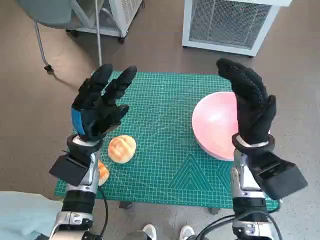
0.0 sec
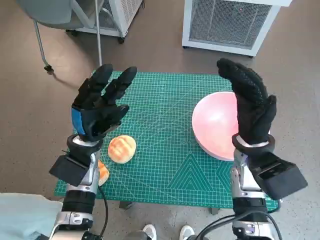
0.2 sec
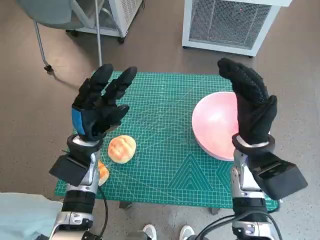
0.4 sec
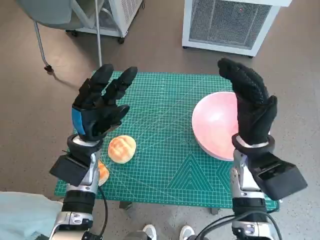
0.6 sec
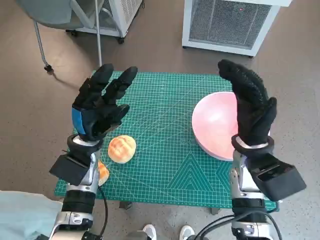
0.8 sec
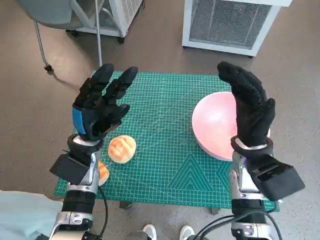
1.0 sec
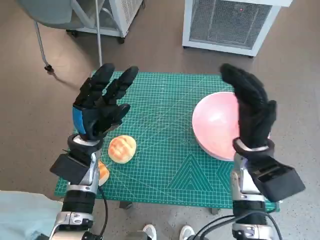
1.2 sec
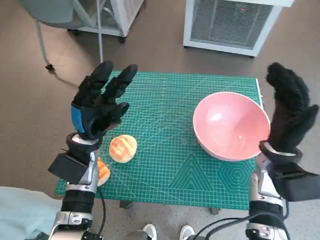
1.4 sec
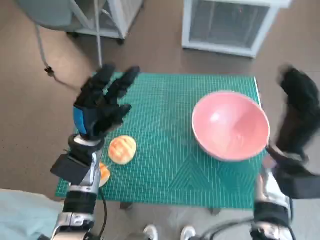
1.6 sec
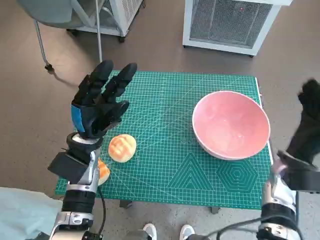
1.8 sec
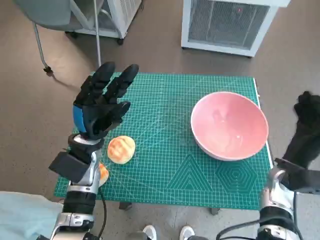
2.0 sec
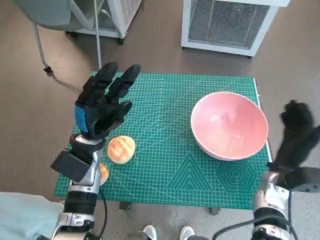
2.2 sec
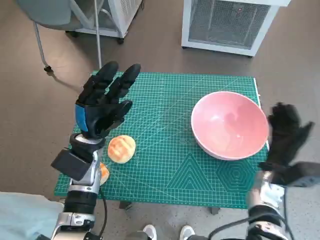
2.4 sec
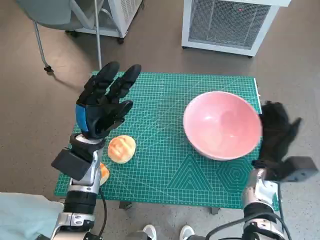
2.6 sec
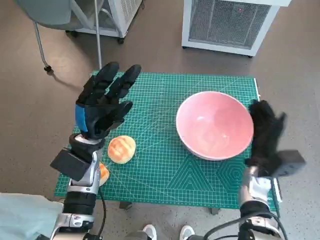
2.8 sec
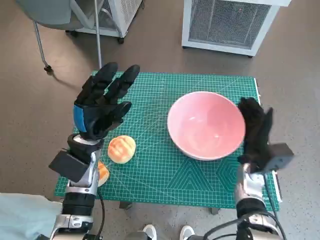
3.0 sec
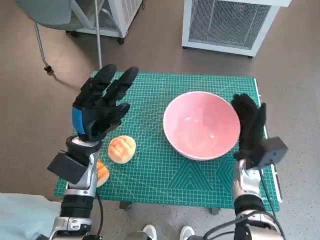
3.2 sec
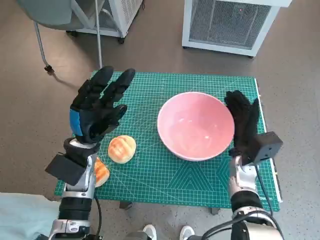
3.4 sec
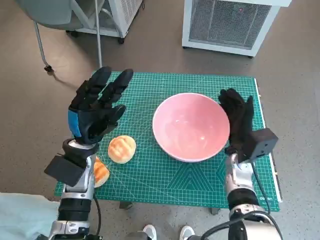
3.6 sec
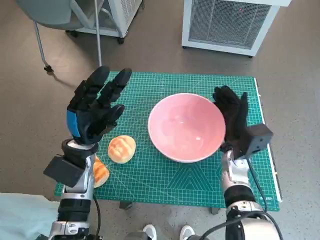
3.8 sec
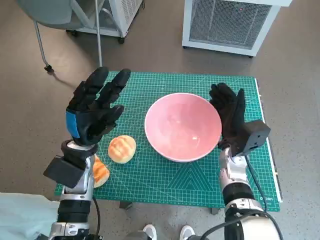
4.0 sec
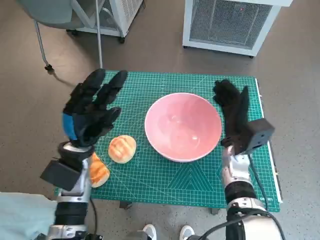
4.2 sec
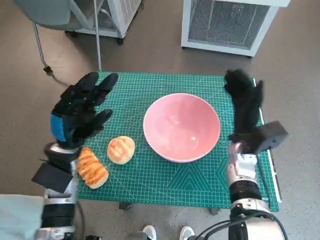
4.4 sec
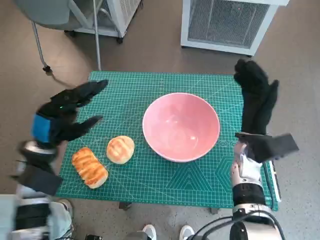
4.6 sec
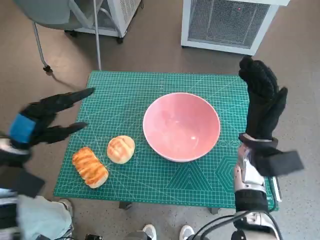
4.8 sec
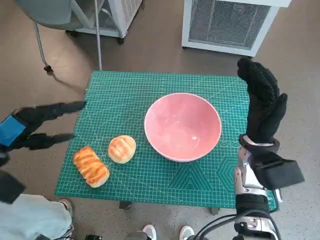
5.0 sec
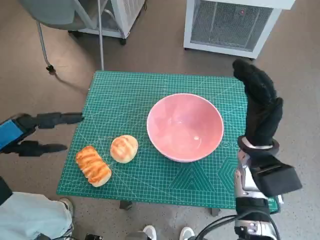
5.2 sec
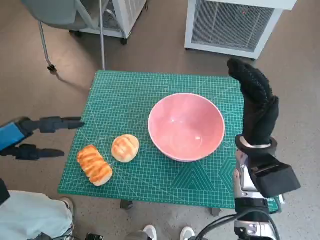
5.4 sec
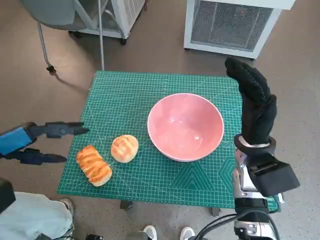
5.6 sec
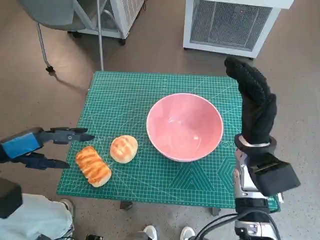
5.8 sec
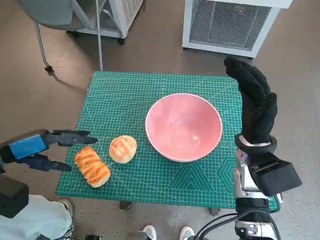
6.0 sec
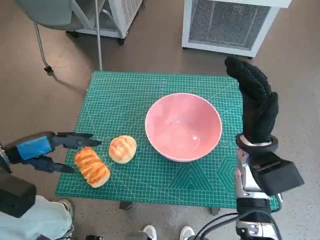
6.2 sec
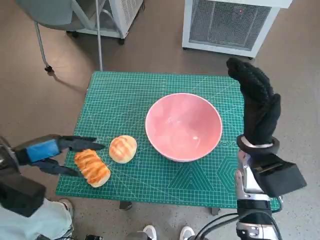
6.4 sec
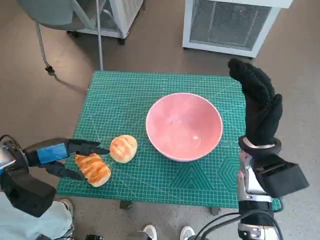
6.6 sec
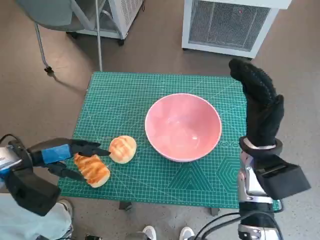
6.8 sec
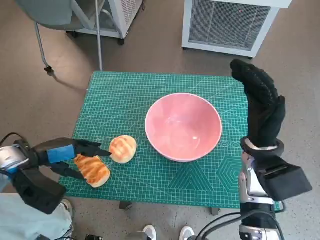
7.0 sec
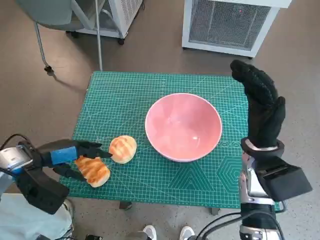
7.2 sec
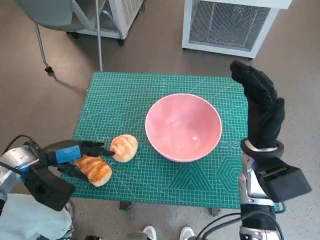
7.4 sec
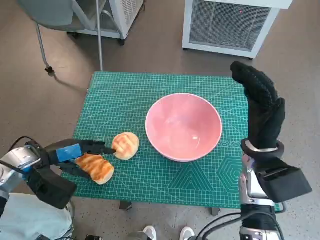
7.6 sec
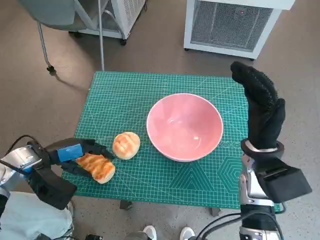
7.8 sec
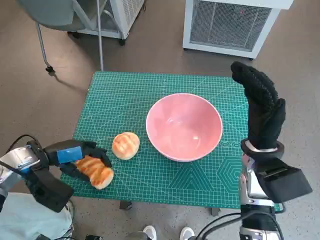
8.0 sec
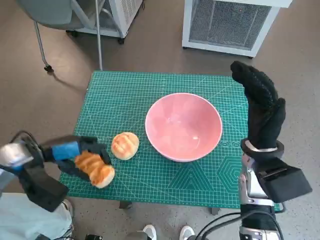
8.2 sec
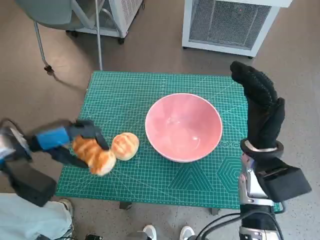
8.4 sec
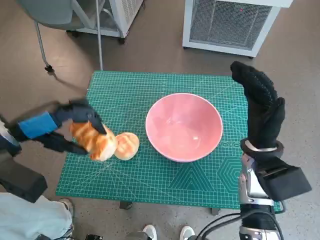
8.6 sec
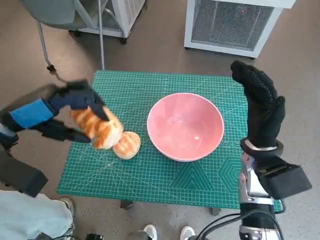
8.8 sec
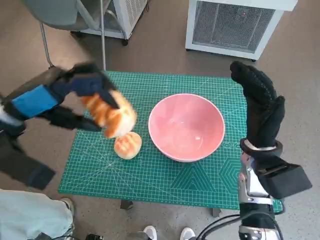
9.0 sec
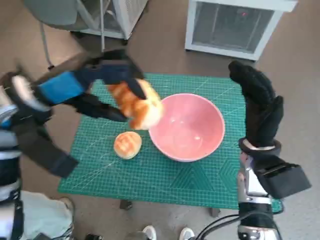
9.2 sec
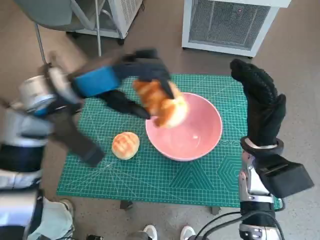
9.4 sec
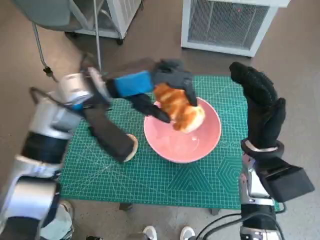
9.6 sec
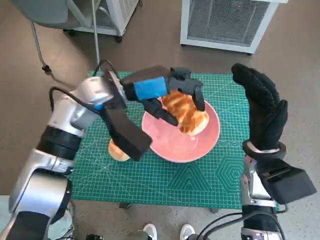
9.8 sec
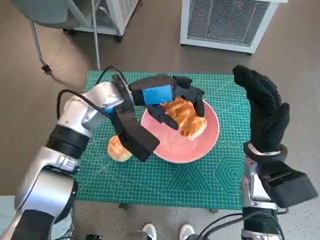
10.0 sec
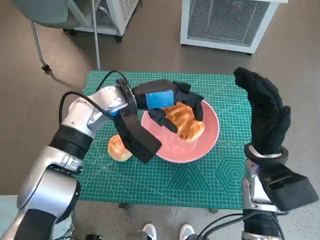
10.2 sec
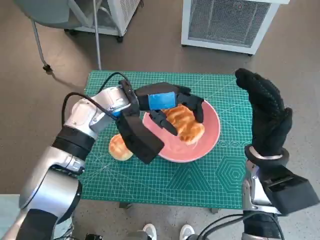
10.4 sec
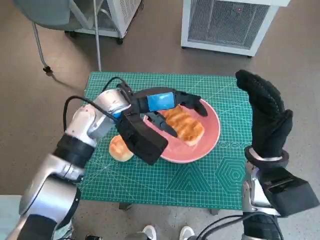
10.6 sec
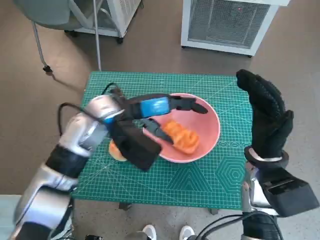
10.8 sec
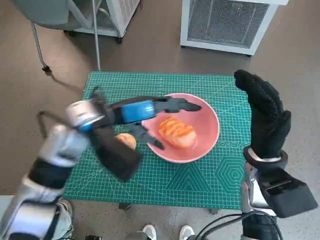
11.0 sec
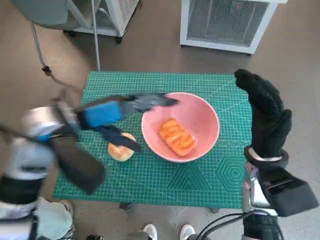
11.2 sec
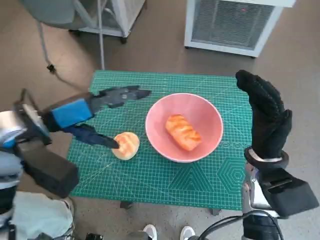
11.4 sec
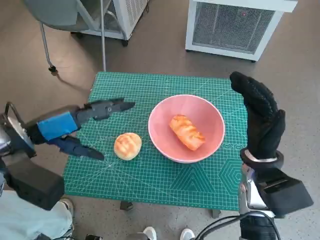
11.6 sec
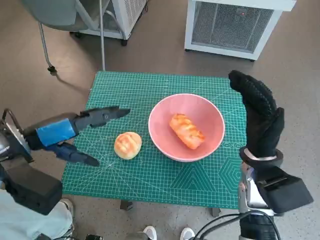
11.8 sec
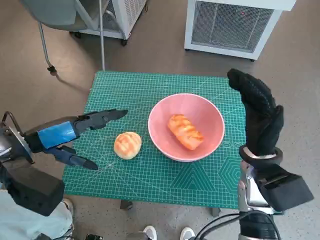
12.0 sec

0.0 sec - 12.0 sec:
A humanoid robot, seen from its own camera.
Task of the whole recording: Push the bowl to the center of the table and put the bread into the bowl.
Step, 0.0 sec - 4.4 sec: Move the pink bowl to the center of table with right hand.
Step, 4.6 sec - 8.0 sec: Grasp the long bread with left hand.
Step, 8.2 sec - 11.0 sec: Place the long bread in pink bowl with left hand.
1.6 sec - 3.0 sec: The right hand heads downward, covering approximately 10 cm.
3.0 sec - 4.4 sec: The right hand shifts by some 5 cm.
4.4 sec - 6.0 sec: The left hand travels to the left and upward by approximately 15 cm; the right hand moves upward, roughly 5 cm.
6.0 sec - 7.6 sec: The left hand moves downward, some 5 cm.
7.6 sec - 9.0 sec: The left hand travels upward by about 15 cm.
9.0 sec - 10.4 sec: The left hand travels to the right, forward and downward by about 20 cm.
10.4 sec - 12.0 sec: The left hand travels to the left and backward by about 20 cm.

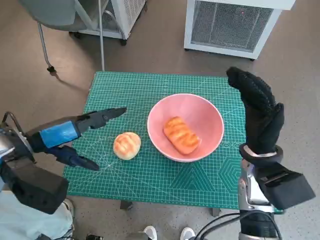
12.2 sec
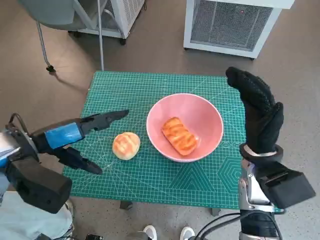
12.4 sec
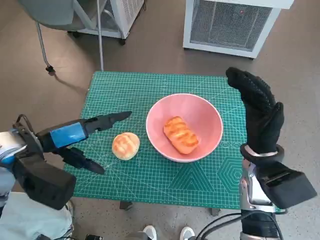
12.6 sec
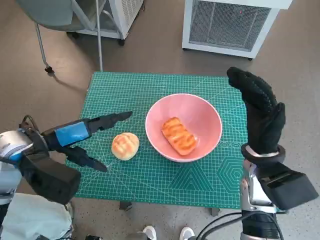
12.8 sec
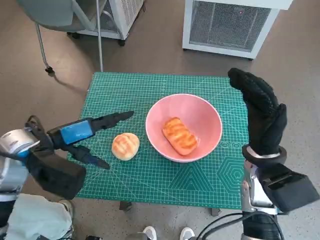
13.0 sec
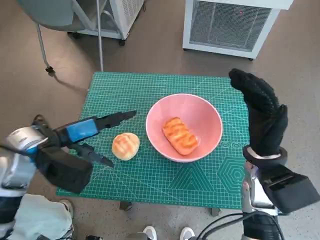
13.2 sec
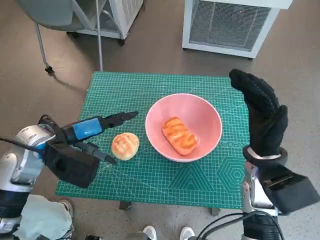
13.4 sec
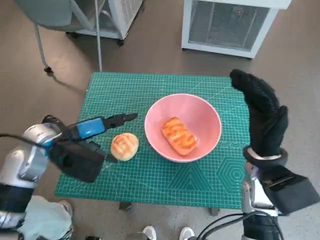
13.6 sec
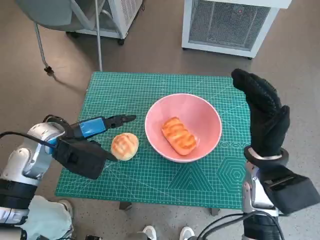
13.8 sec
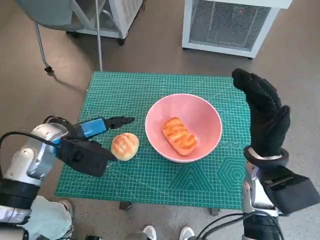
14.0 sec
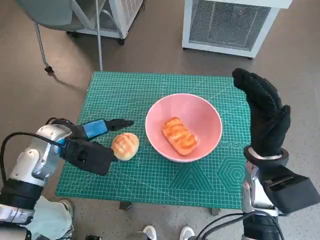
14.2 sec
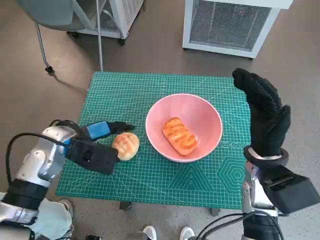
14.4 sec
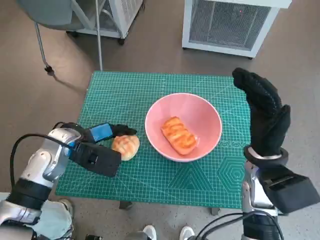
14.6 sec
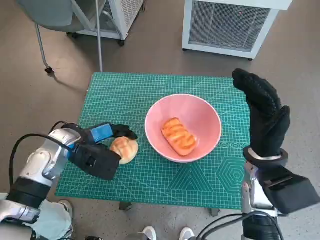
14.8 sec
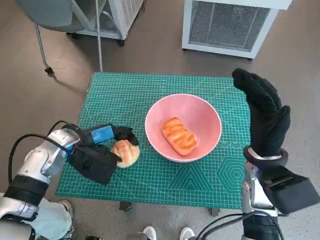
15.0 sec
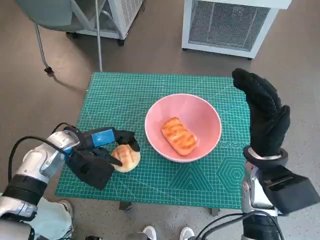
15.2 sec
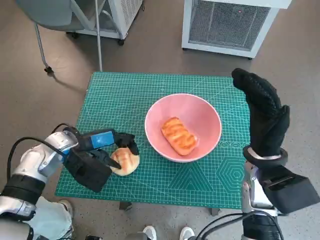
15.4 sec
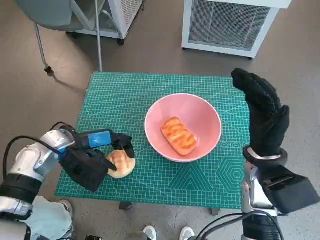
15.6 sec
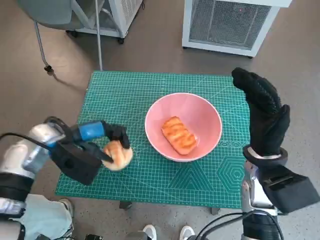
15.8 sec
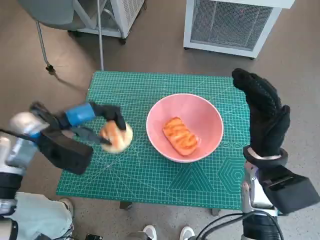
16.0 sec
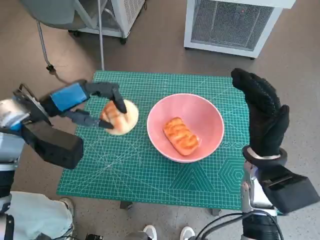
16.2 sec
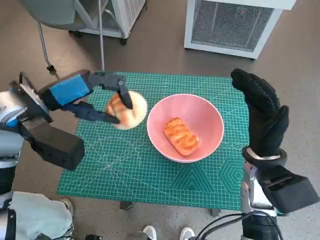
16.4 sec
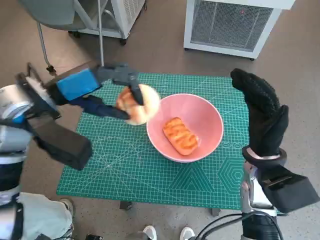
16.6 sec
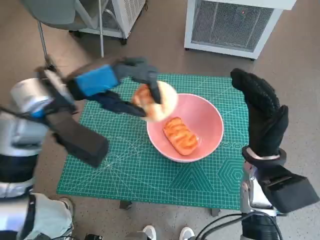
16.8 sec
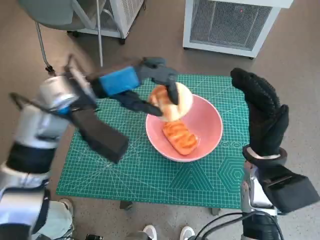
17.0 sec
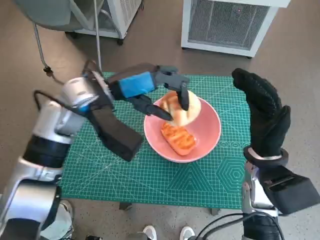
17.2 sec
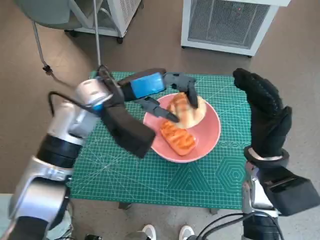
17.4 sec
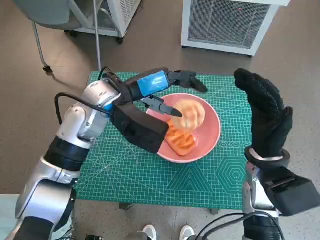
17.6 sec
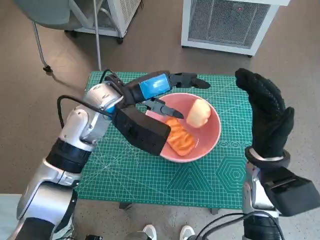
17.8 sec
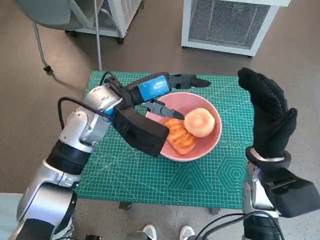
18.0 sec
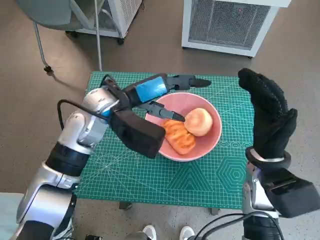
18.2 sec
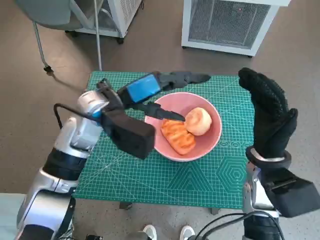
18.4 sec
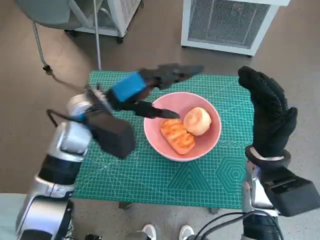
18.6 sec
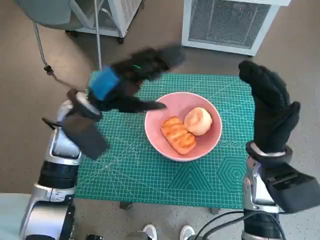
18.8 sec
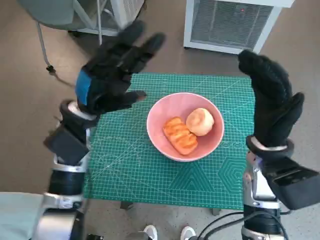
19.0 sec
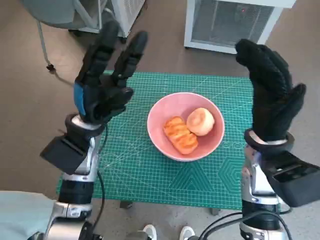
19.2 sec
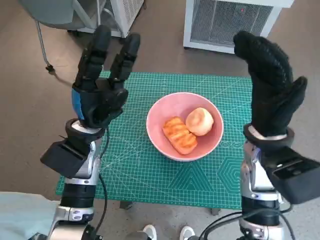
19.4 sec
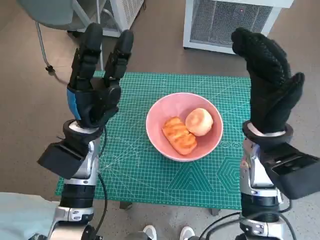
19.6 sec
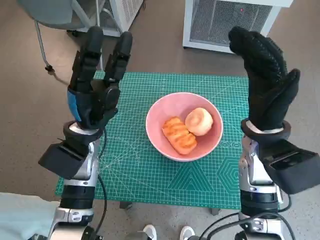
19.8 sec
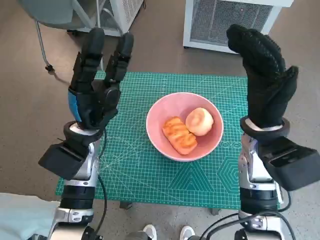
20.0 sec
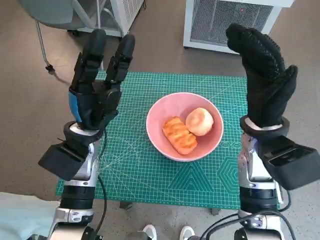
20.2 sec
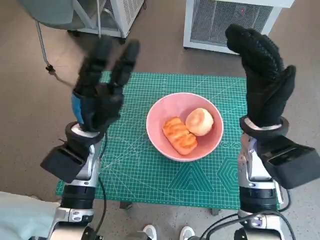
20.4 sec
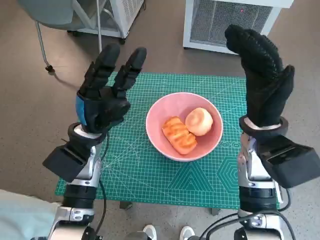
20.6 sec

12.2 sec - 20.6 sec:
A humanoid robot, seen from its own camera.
Task of the whole recording: Push the bowl to the center of the table and put the bread into the bowl.
Step, 12.2 sec - 14.6 sec: Grasp the round bread with left hand.
Step, 14.8 sec - 17.8 sec: Place the round bread in pink bowl with left hand.
12.2 sec - 13.6 sec: The left hand heads downward and forward, covering approximately 5 cm.
13.6 sec - 15.0 sec: The left hand changes place by some 5 cm.
15.0 sec - 16.4 sec: The left hand heads upward, covering some 10 cm.
16.4 sec - 17.8 sec: The left hand moves to the right, some 10 cm.
17.8 sec - 19.2 sec: The left hand moves to the left and downward, roughly 10 cm.

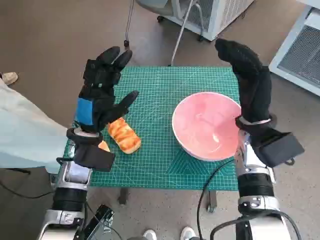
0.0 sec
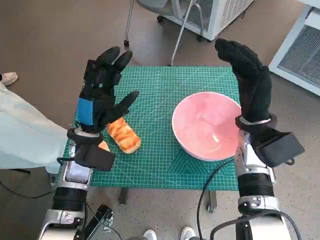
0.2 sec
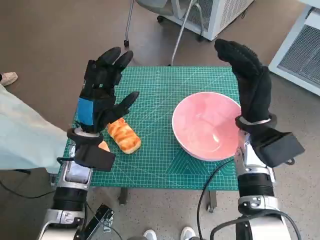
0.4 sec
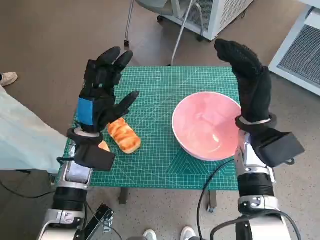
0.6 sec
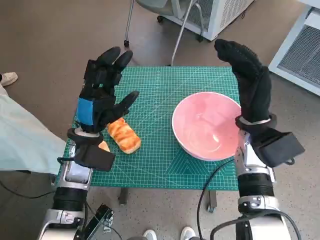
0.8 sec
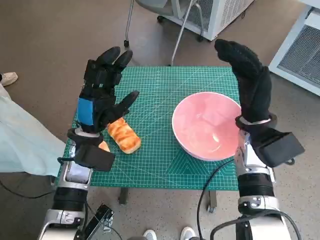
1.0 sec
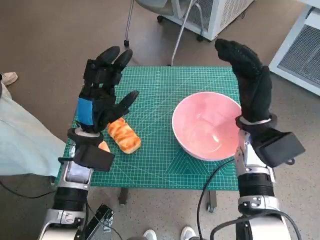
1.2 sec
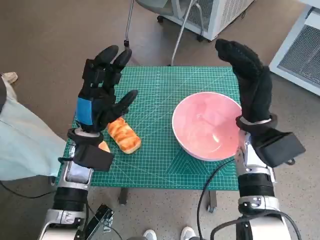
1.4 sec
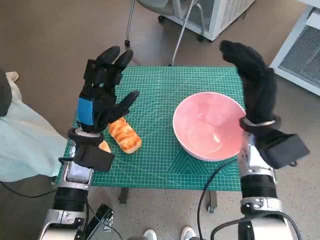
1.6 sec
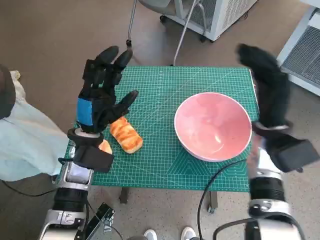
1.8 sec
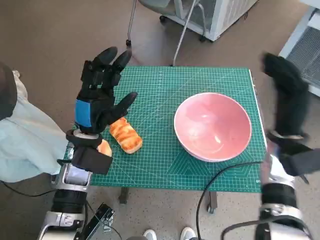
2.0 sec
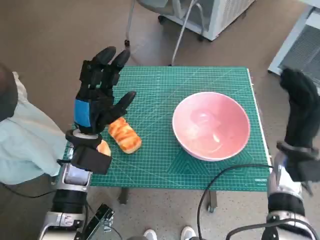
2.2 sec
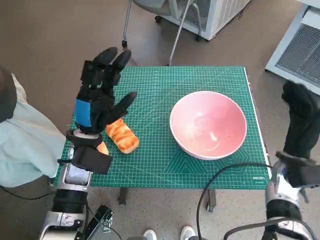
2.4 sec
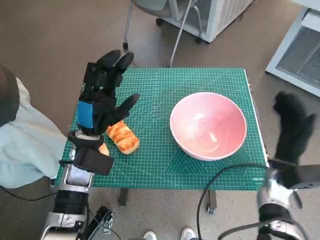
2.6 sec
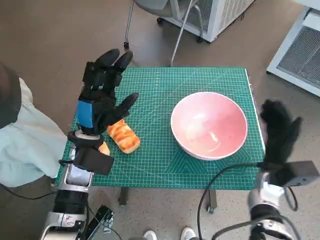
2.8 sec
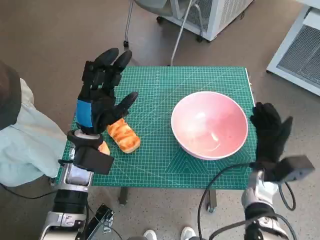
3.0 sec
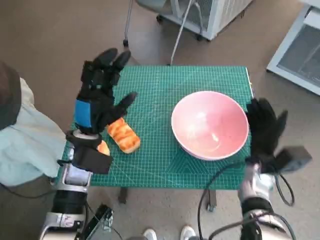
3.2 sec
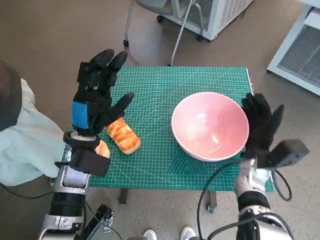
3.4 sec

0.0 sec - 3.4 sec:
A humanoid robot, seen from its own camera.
Task of the whole recording: Push the bowl to the center of the table and put the bread into the bowl.
1.6 sec - 3.4 sec: The right hand heads downward, covering about 10 cm.
